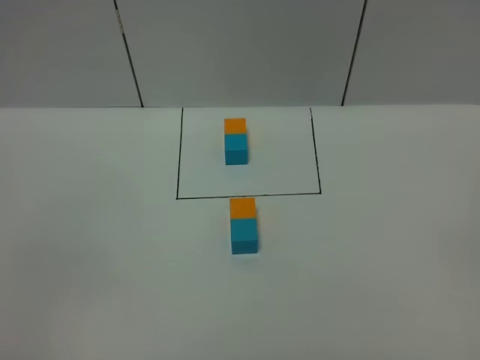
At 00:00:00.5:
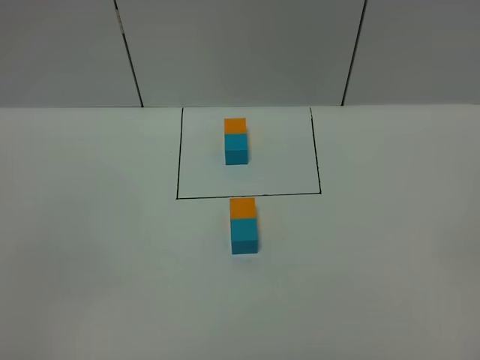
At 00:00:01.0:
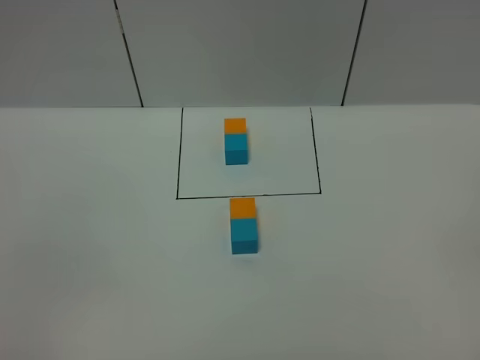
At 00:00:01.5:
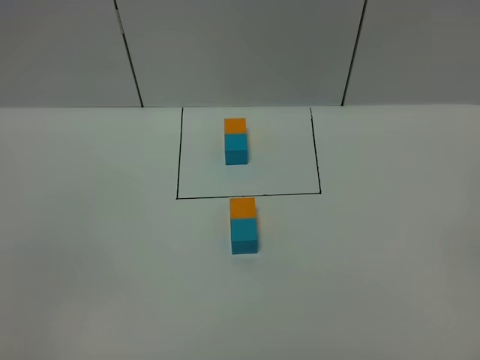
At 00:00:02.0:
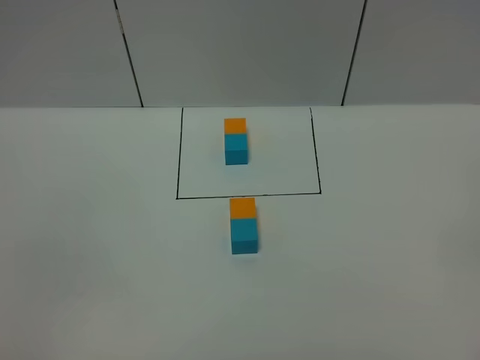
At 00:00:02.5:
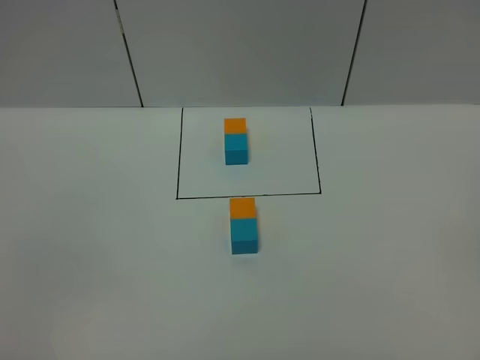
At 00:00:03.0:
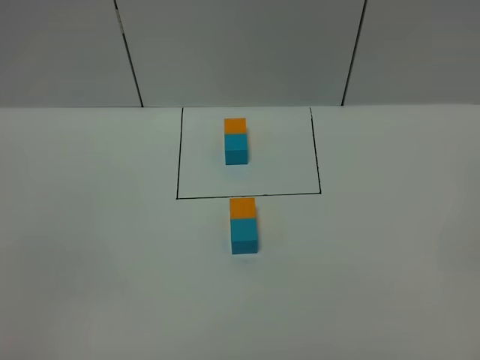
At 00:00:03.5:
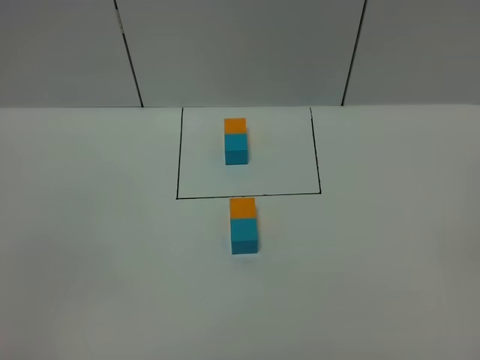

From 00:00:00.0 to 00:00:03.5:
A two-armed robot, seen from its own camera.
Task of the whole recording: According to the building block template in front, assemble the scattered blocks together.
From 00:00:00.0 to 00:00:03.5: Both grippers stay about where they are.
